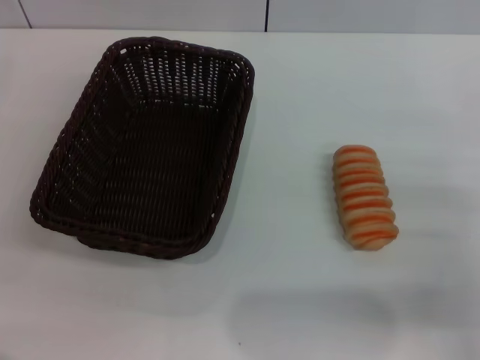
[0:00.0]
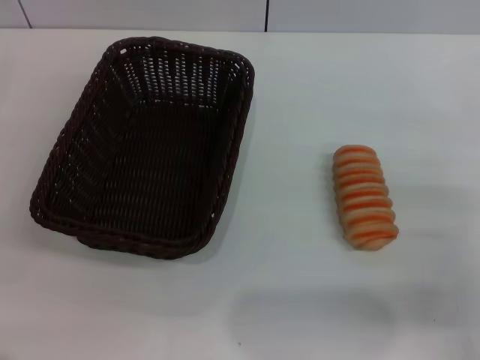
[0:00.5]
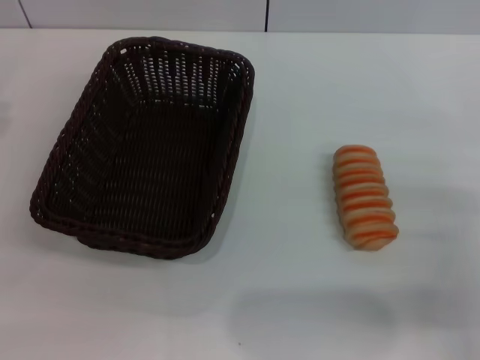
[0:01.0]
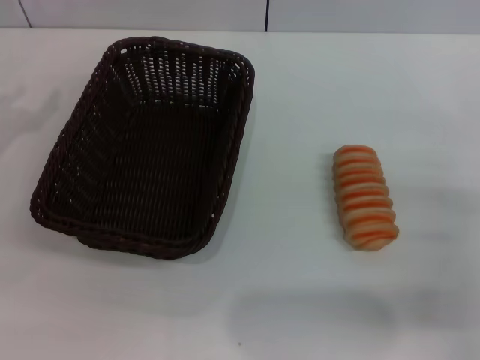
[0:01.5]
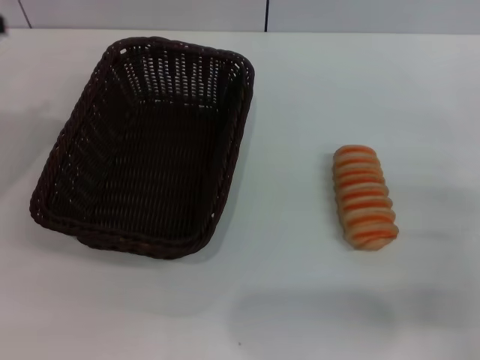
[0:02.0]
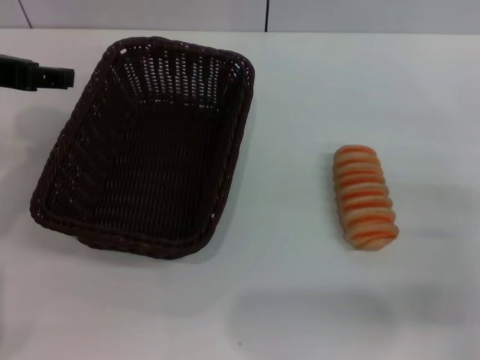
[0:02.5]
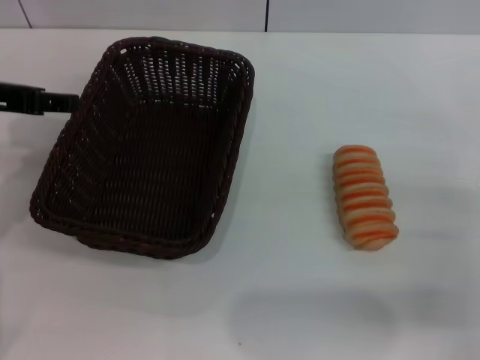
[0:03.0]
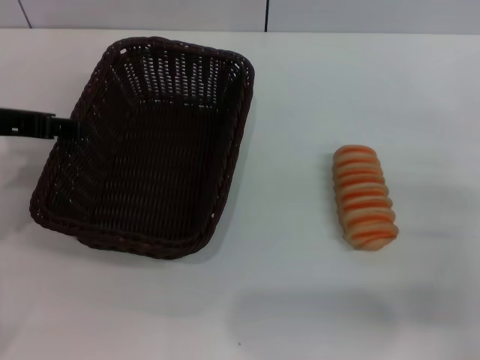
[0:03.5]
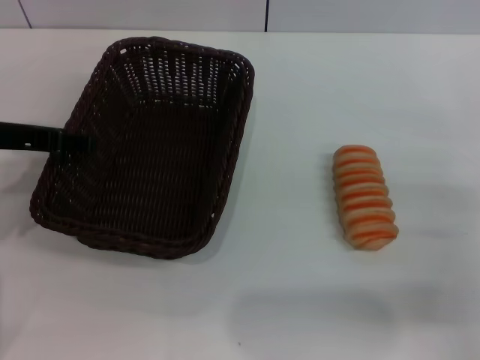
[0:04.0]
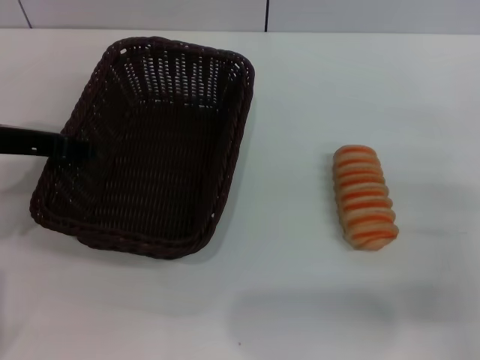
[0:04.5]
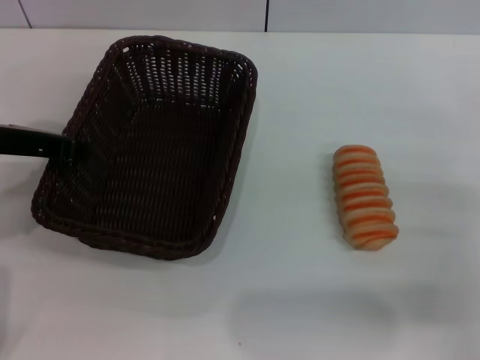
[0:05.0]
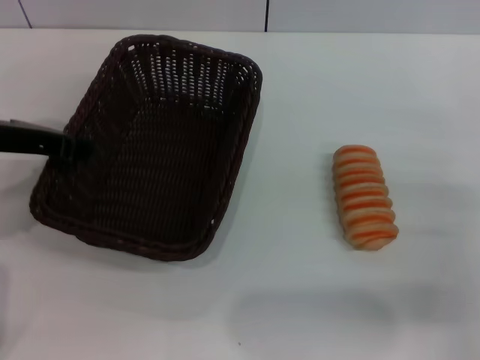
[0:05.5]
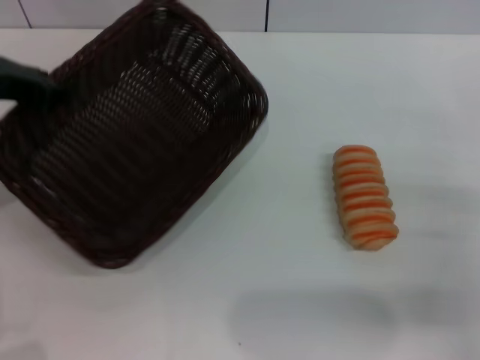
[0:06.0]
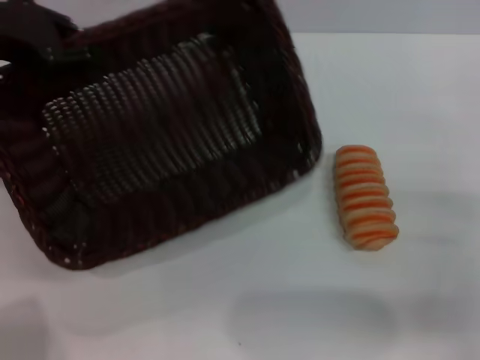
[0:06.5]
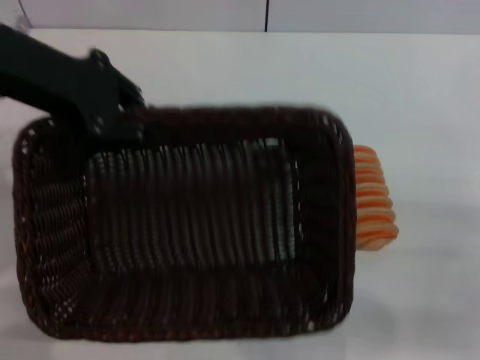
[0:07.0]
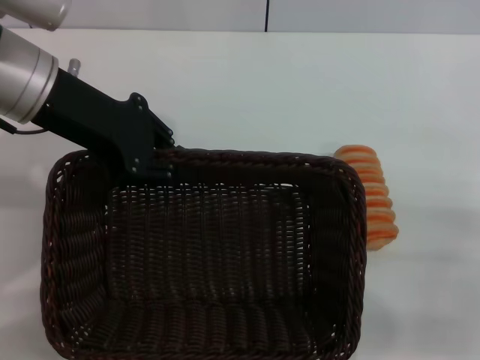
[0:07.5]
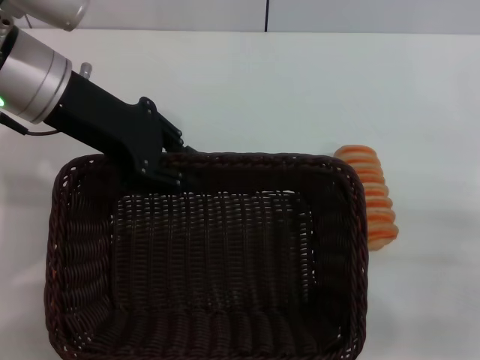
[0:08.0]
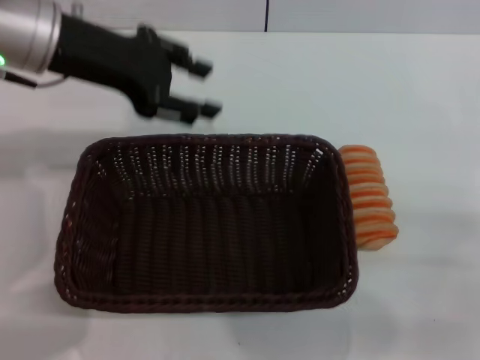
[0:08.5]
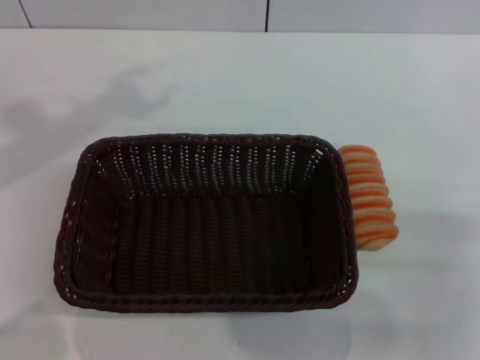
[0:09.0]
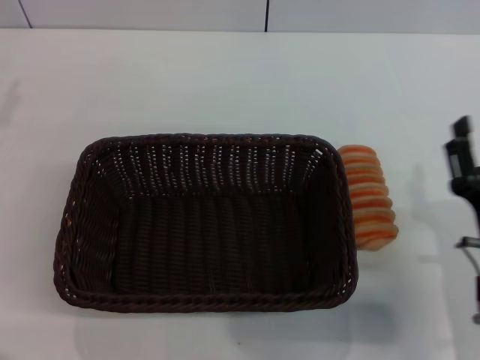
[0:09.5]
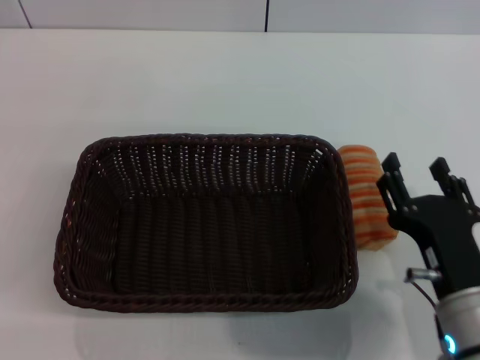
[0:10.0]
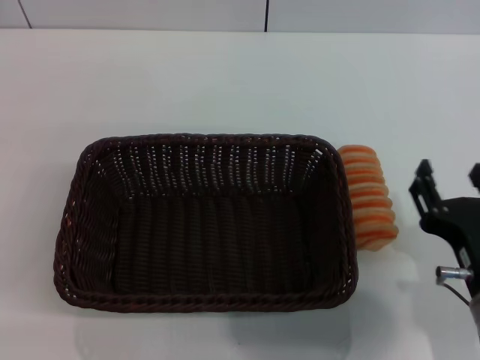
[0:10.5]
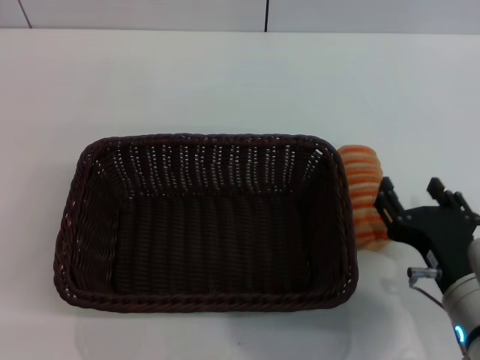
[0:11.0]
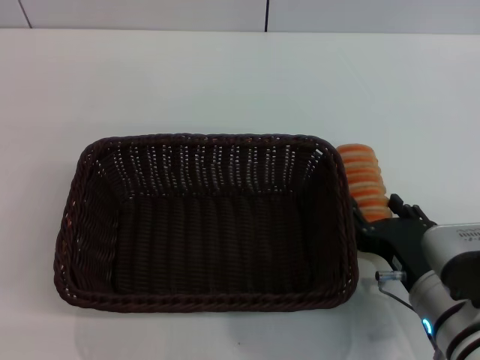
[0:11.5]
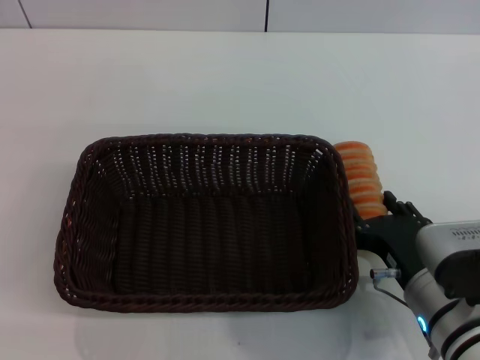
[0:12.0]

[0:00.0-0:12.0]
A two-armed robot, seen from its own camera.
Step, 0:00.0 to 0:06.0: Pick up the dark basket with the left gripper.
Step, 0:06.5 to 0:08.0: Place the dark basket in the center of view with the left gripper.
0:02.0 to 0:04.0: The left gripper heads downward, covering roughly 10 cm.
0:04.0 to 0:06.0: The left gripper closes.
0:06.0 to 0:08.0: The left gripper is displaced to the right by about 10 cm.
0:08.0 to 0:10.0: The left gripper is displaced to the left and backward by about 25 cm, and opens its fingers. The right gripper is displaced to the left by approximately 10 cm.

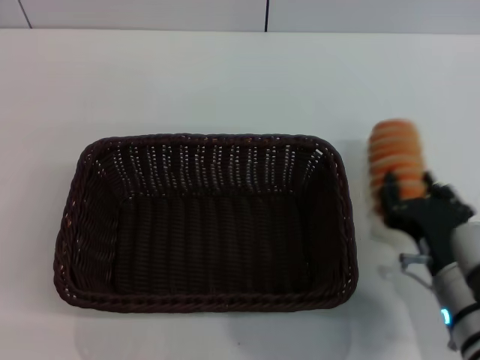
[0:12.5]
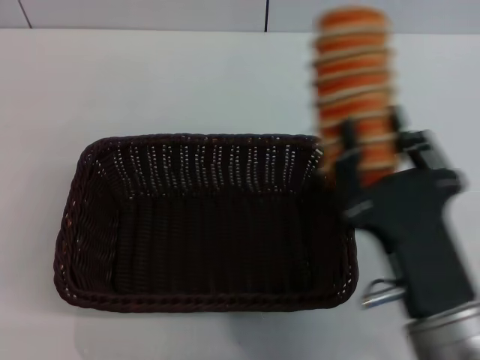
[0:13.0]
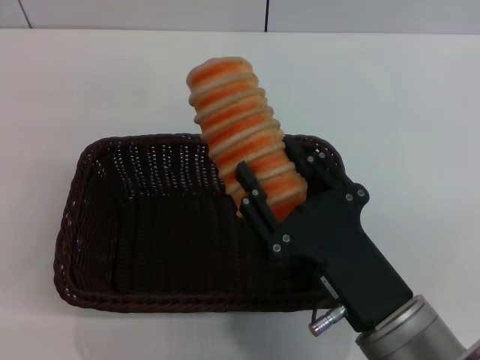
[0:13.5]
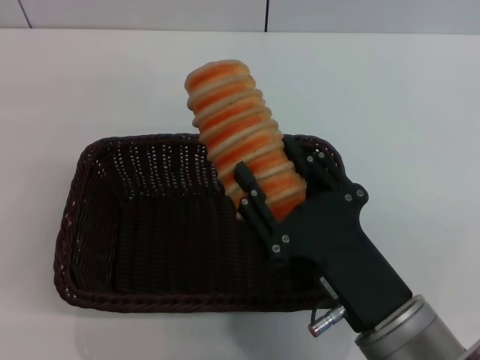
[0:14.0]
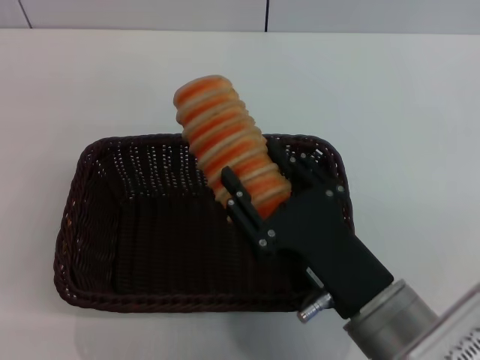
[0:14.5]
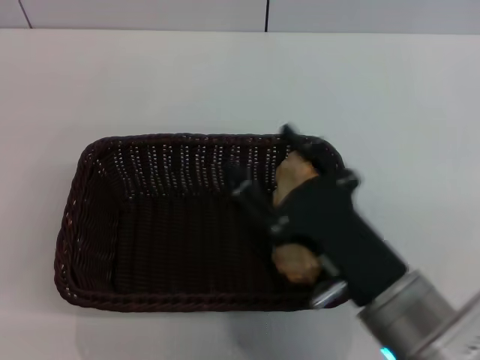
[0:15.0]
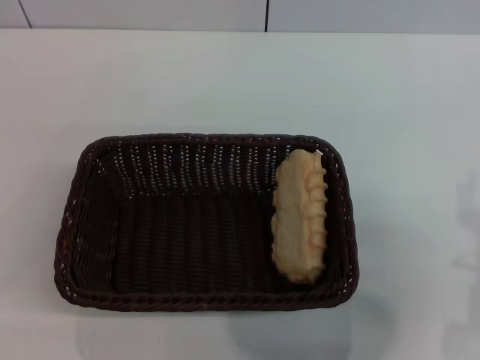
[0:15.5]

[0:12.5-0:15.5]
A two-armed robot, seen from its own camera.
Step, 0:13.0 to 0:14.5: Place the long bread into the dark basket with the right gripper.
0:12.5 to 0:14.0: The right gripper travels to the left and backward by approximately 10 cm, and closes, then reopens.
0:14.0 to 0:15.5: The right gripper travels to the right by some 10 cm, and opens.

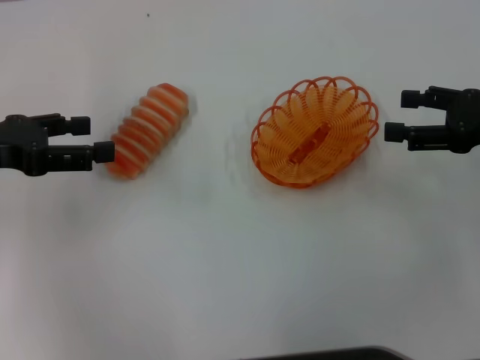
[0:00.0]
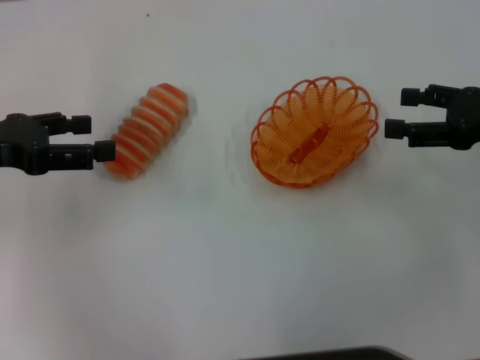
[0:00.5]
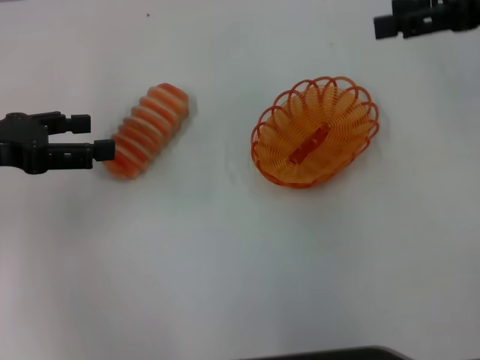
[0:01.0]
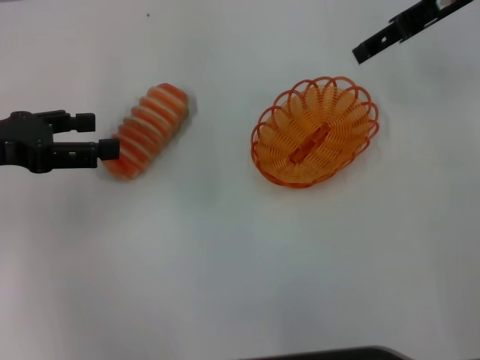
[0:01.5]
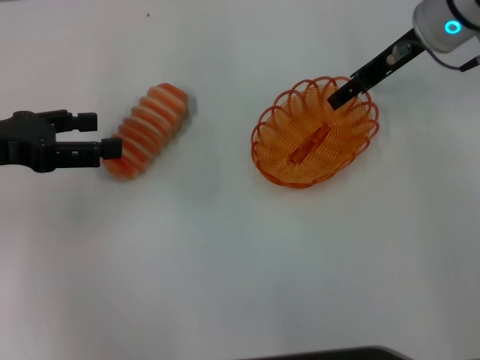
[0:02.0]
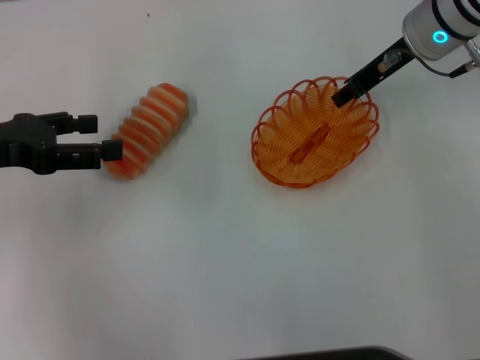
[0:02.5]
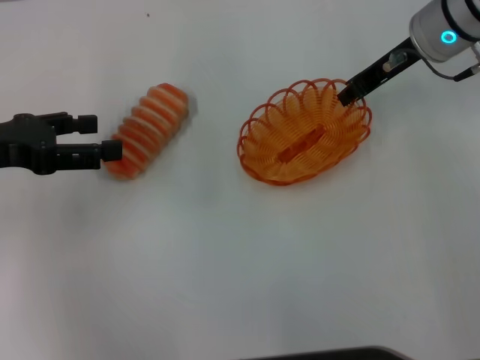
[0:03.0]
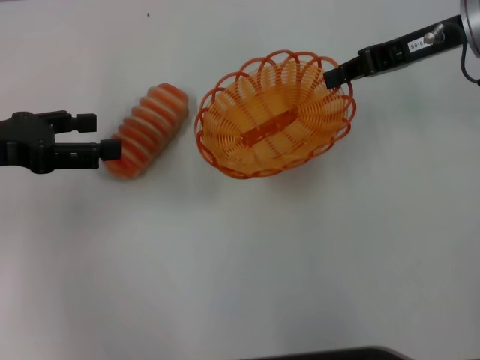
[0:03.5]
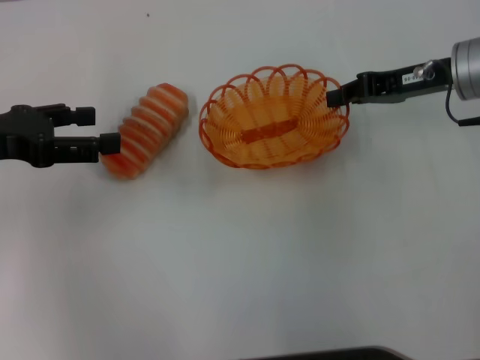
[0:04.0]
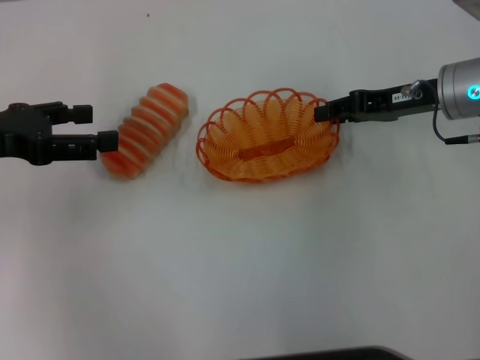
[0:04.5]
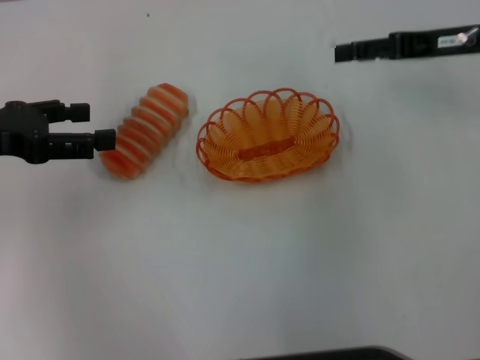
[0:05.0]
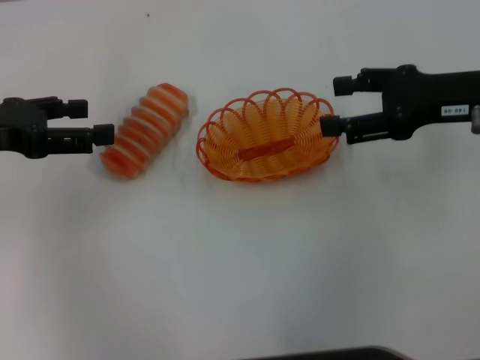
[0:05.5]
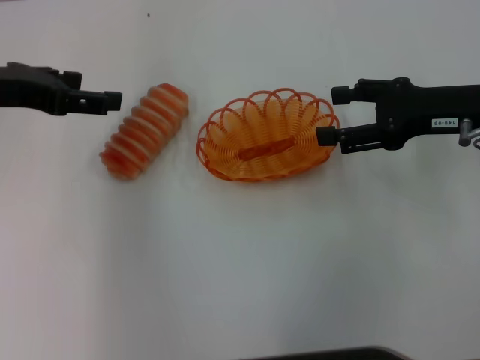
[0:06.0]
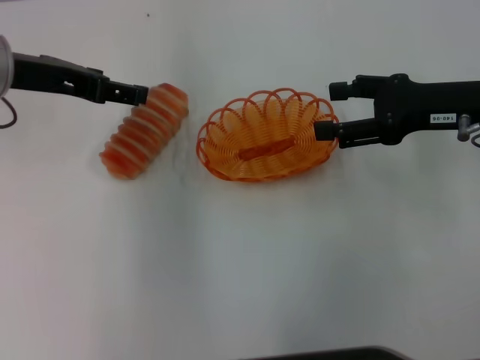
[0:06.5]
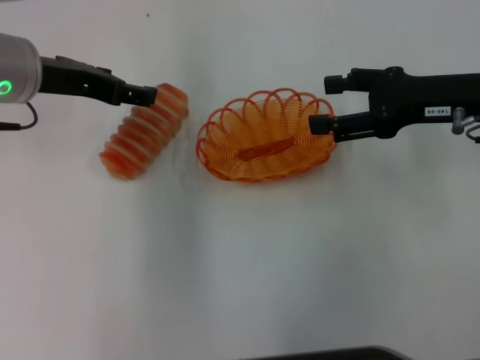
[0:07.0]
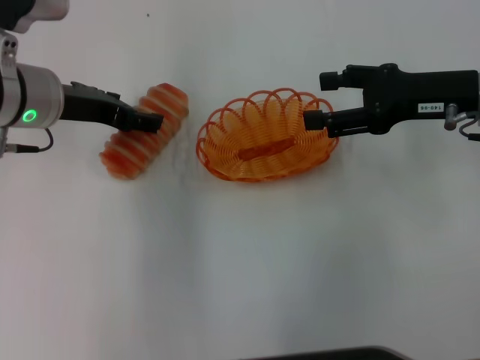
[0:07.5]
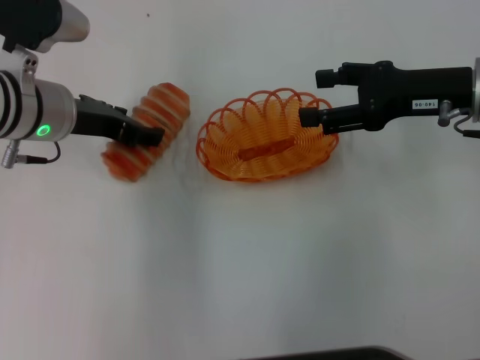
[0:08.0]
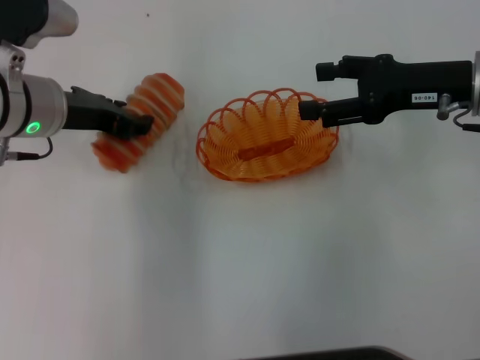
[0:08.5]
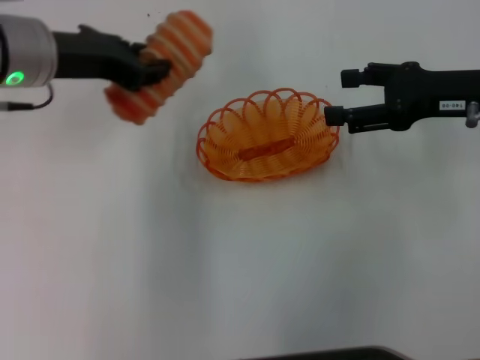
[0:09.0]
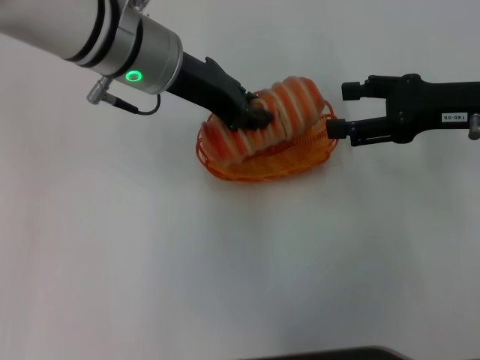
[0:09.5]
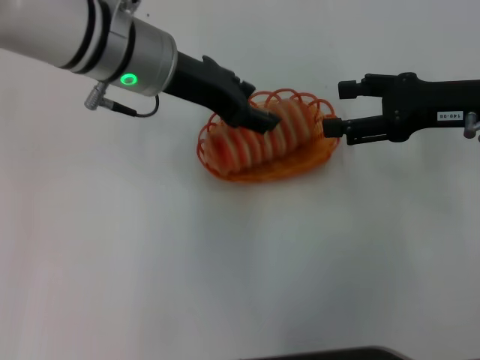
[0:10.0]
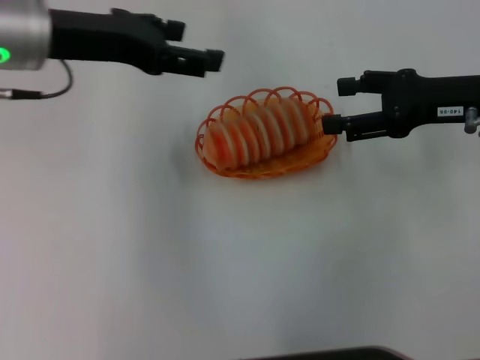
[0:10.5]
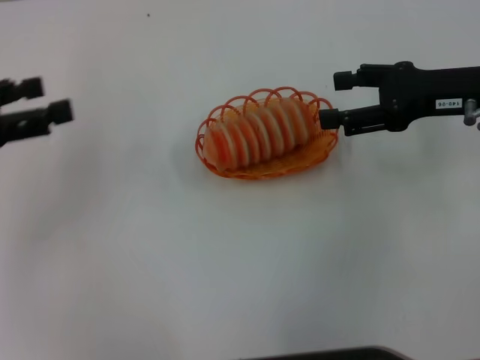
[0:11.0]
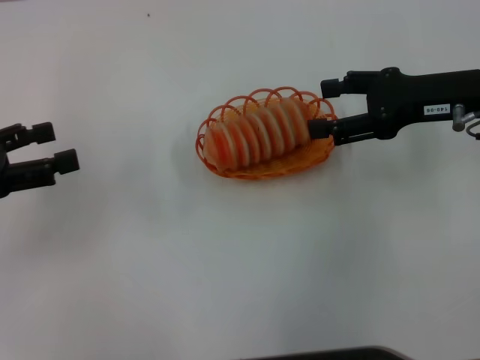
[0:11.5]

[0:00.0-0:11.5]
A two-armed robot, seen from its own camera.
Step, 0:00.0 to 0:03.0: Pick up the basket with the right gripper.
Step, 0:03.5 to 0:06.0: Place the basket in the center of view with the right gripper.
Step, 0:06.5 to 0:08.5: Pick up the long bread with the left gripper.
Step, 0:09.0 to 0:10.5: Place the long bread into the basket with the left gripper.
0:00.0 to 0:02.0: The right gripper heads forward and to the left, covering roughly 20 cm.
0:02.0 to 0:04.0: The right gripper shifts by some 10 cm, and closes.
0:04.0 to 0:06.0: The left gripper changes place by some 5 cm. The right gripper moves backward, about 5 cm, and opens up.
0:06.0 to 0:07.5: The left gripper goes roughly 10 cm to the right and downward.
0:07.5 to 0:09.5: The left gripper shifts approximately 10 cm to the right, and closes up.
0:09.5 to 0:11.5: The left gripper shifts roughly 25 cm to the left and backward, and opens its fingers.
